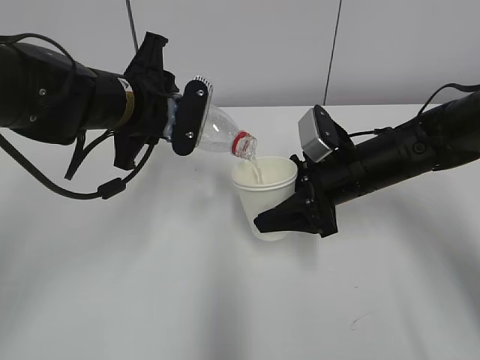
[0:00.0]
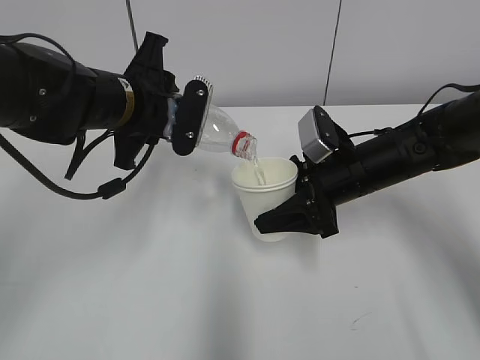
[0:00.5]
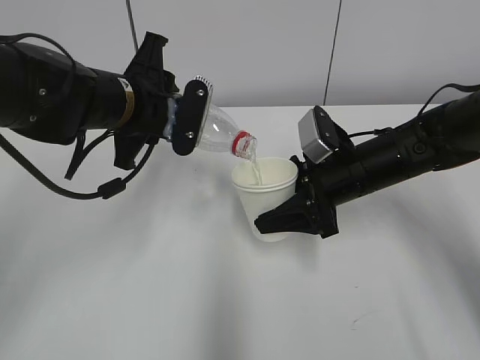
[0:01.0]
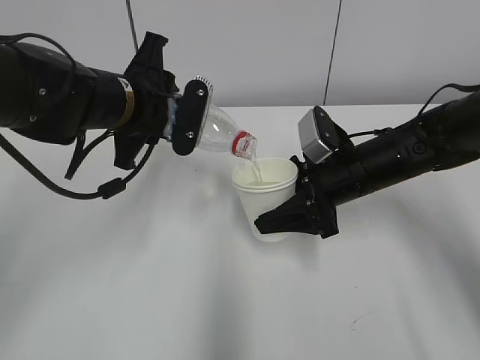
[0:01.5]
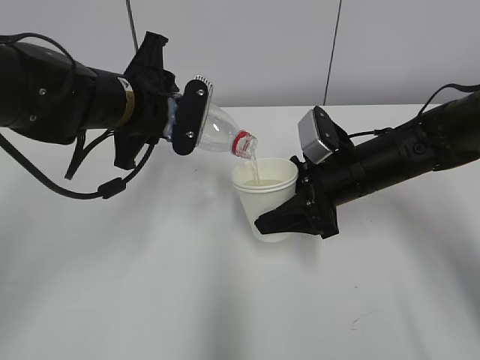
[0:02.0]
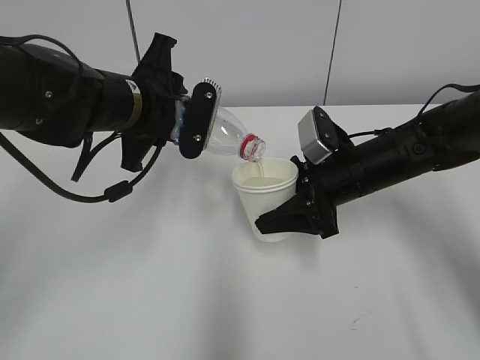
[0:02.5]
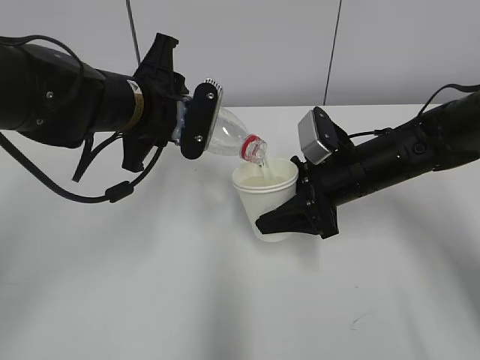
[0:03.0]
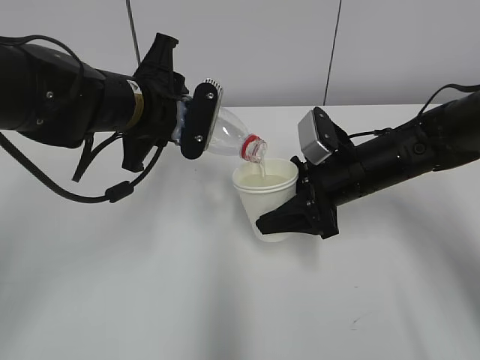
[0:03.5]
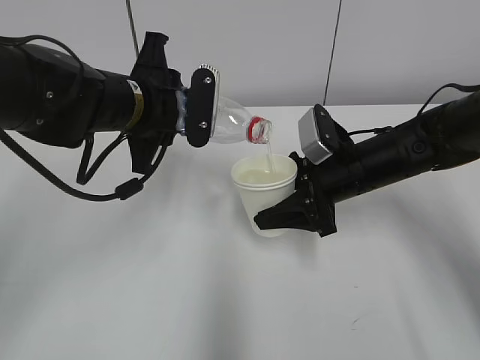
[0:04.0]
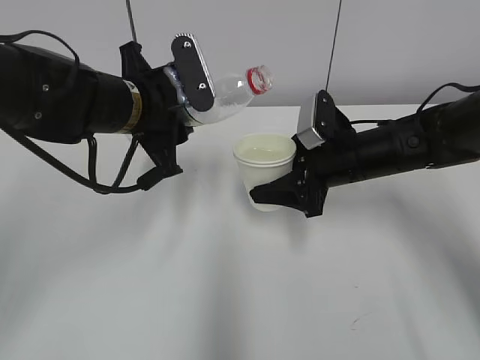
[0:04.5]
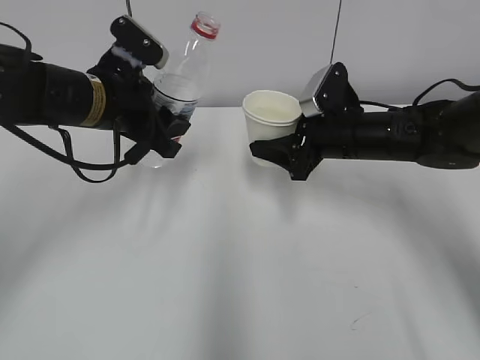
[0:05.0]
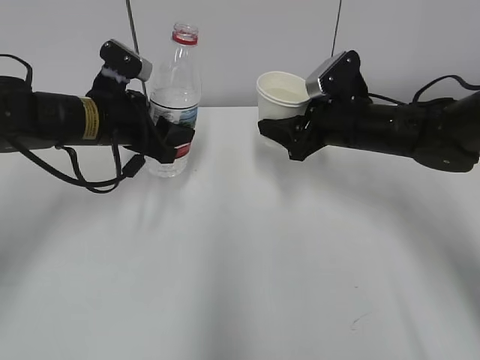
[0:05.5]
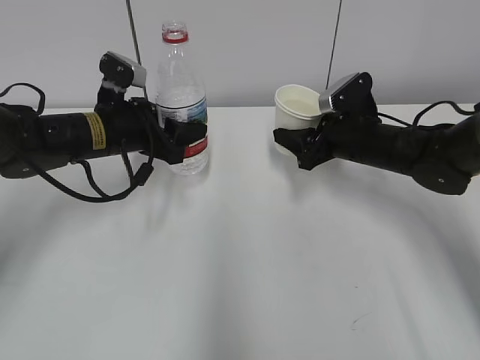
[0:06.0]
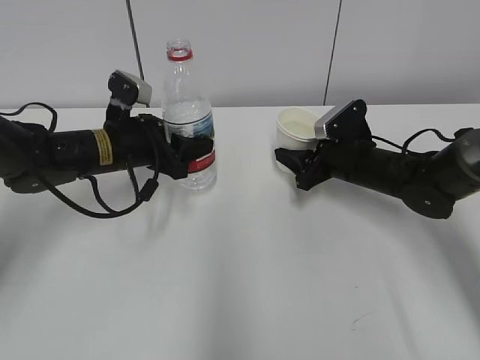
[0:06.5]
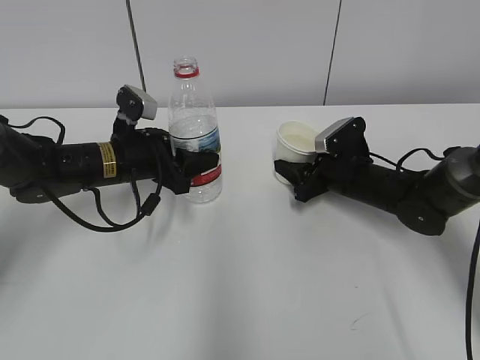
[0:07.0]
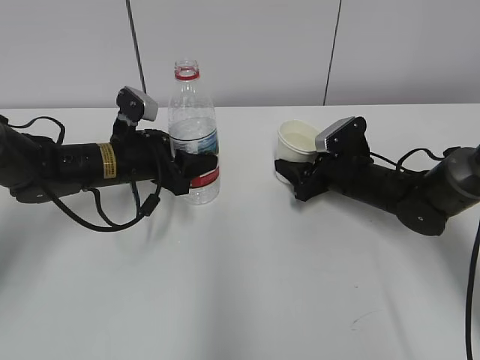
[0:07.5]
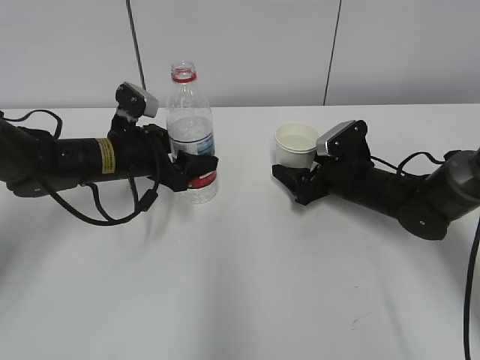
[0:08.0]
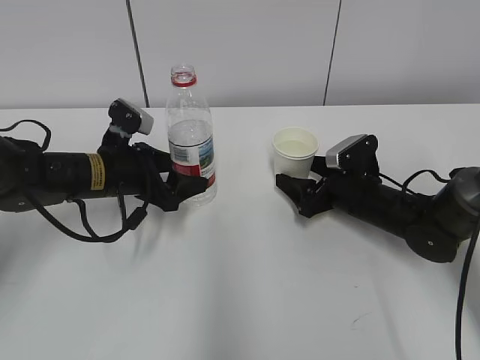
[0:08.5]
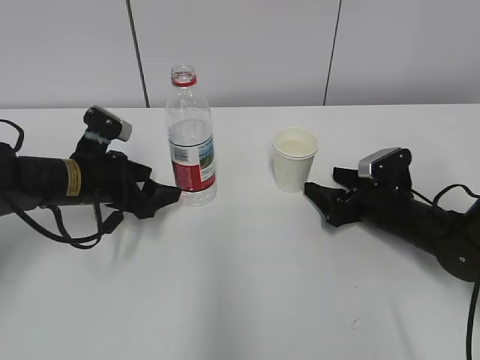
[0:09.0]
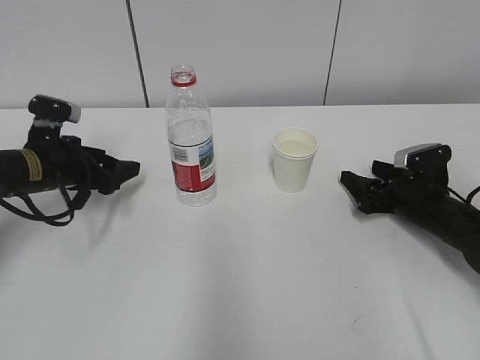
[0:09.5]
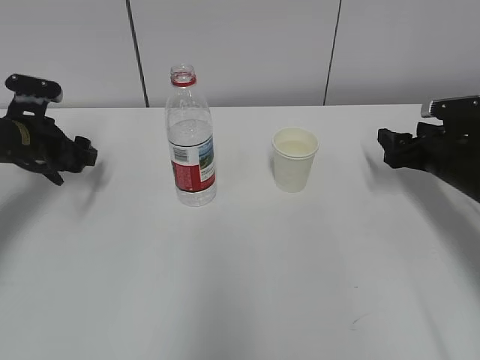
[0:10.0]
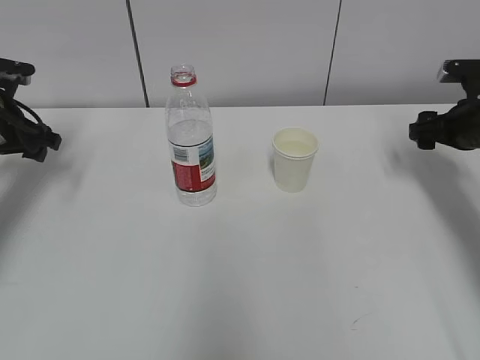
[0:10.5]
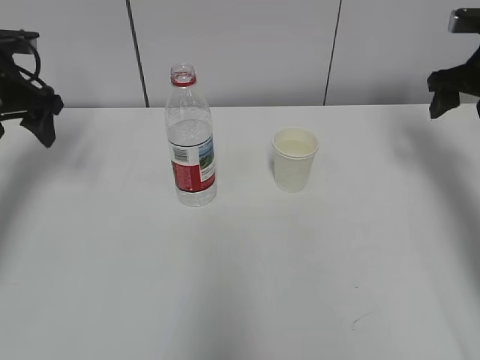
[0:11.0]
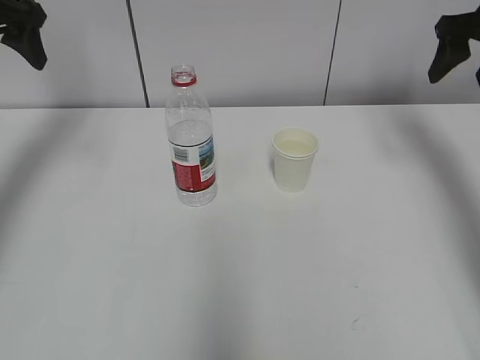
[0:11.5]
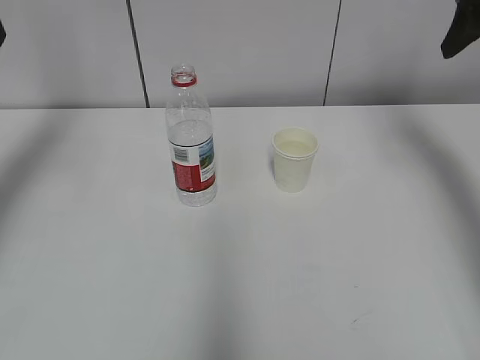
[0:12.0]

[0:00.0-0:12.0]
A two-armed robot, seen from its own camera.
0:00.0 to 0:02.0: The two grippers keep their place.
0:02.0 to 0:04.0: There are only small adjustments of the grippers.
0:04.0 to 0:06.0: The right gripper shifts about 5 cm forward, while the left gripper travels downward and to the left by some 10 cm.
0:06.0 to 0:08.0: The right gripper shifts approximately 5 cm downward, and opens its fingers; the left gripper opens its fingers.
0:08.0 to 0:10.0: The left gripper shifts approximately 15 cm to the left, while the right gripper heads to the right, covering roughly 10 cm.
0:10.0 to 0:12.0: Both grippers travel together upward, approximately 25 cm.

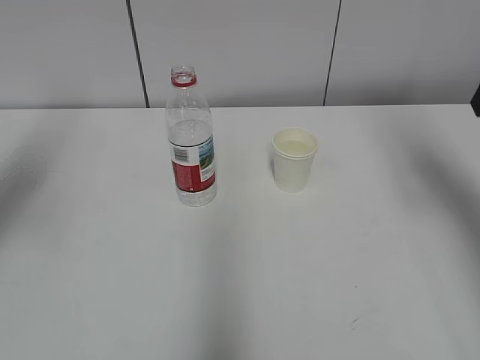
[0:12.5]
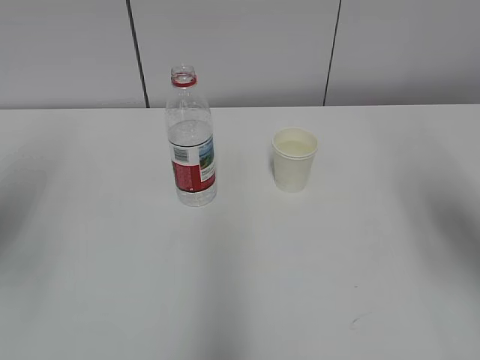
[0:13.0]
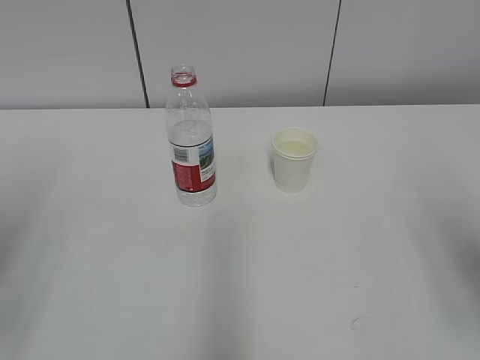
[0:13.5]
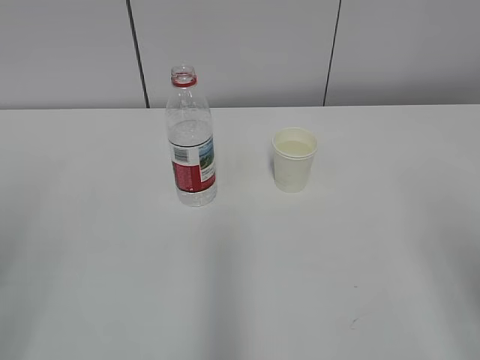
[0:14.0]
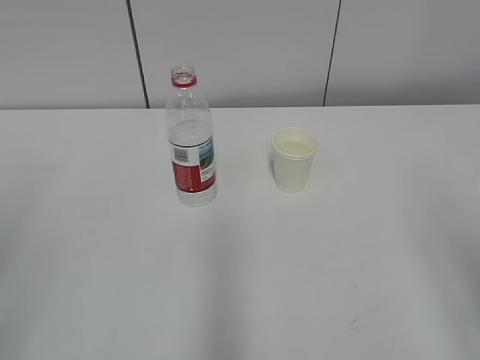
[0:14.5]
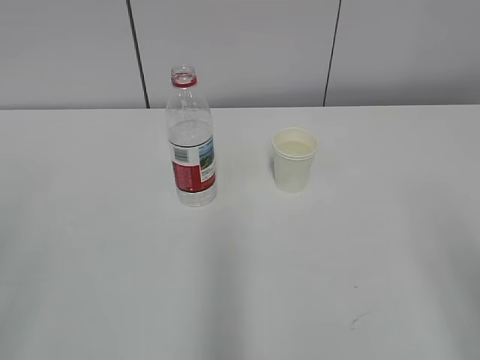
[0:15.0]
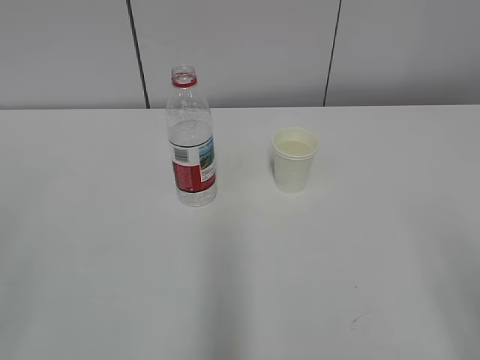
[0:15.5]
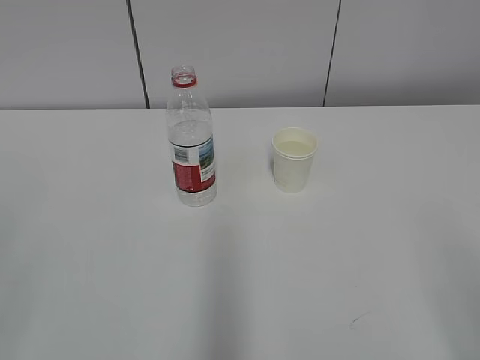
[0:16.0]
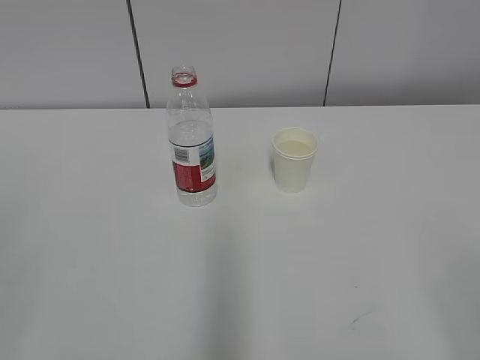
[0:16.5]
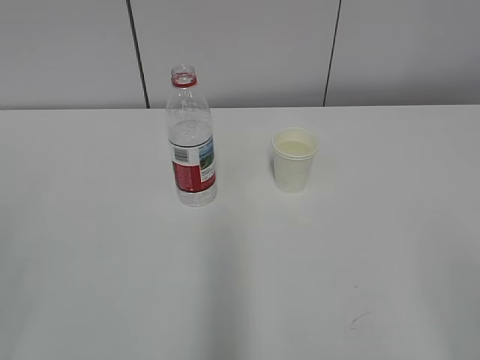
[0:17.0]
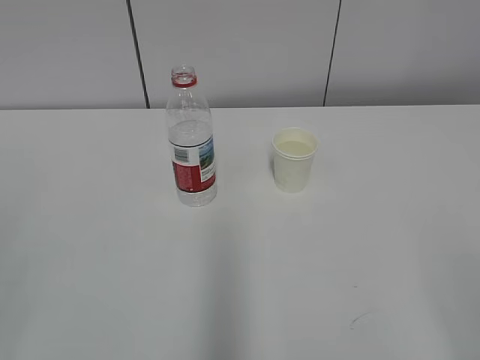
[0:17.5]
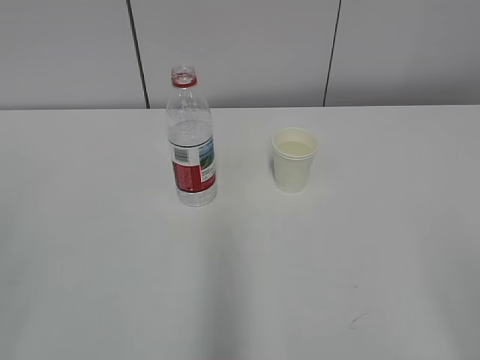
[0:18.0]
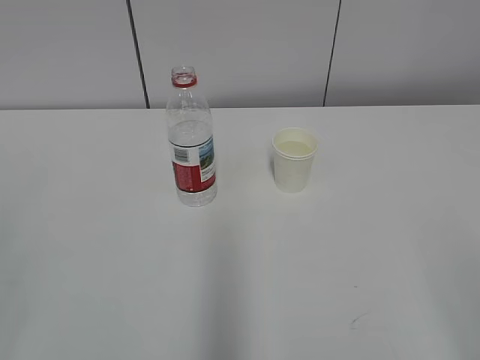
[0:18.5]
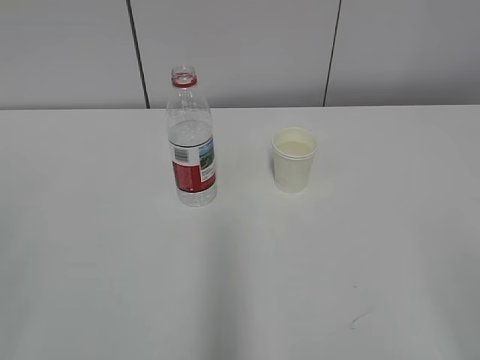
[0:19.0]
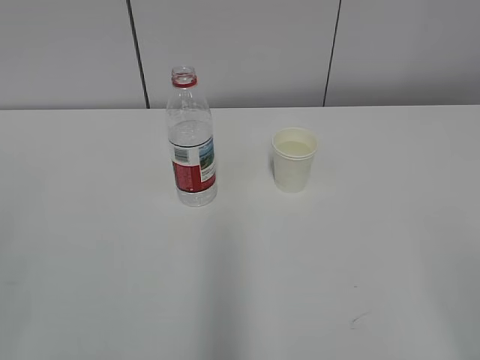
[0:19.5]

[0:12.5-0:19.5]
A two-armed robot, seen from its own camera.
0:12.5 to 0:14.5: The right gripper travels backward by roughly 25 cm; the left gripper shifts about 20 cm backward and downward.
0:17.5 to 0:19.5: The two grippers keep their place.

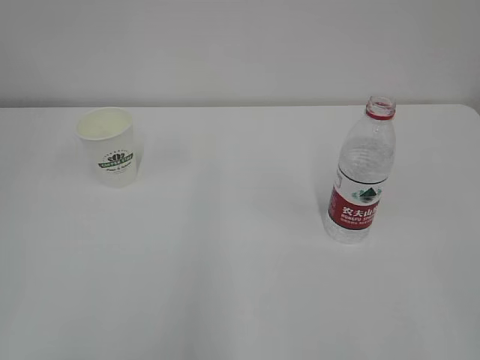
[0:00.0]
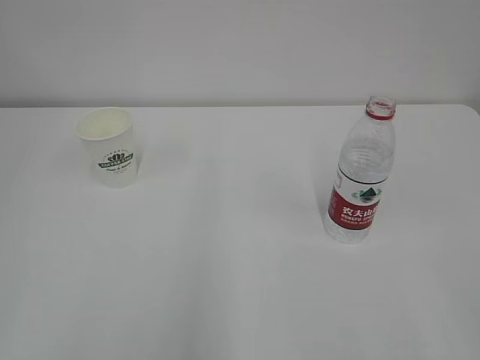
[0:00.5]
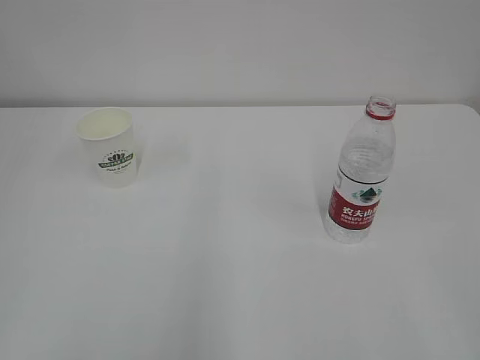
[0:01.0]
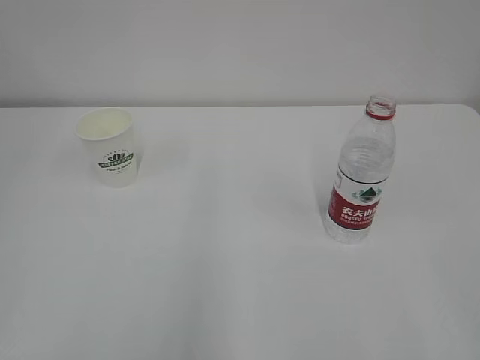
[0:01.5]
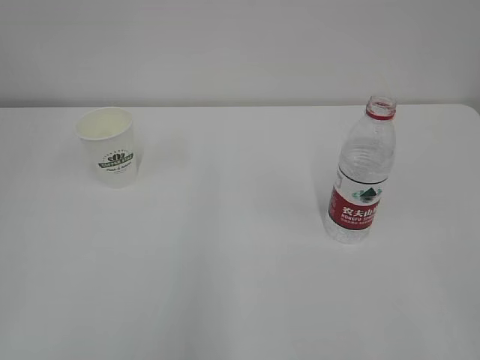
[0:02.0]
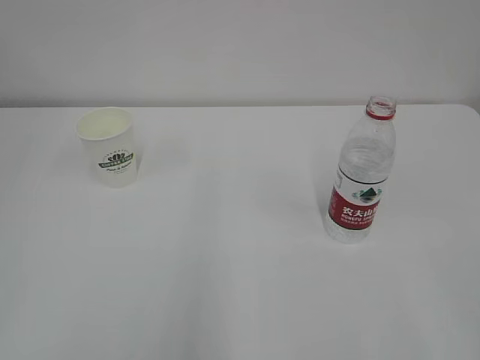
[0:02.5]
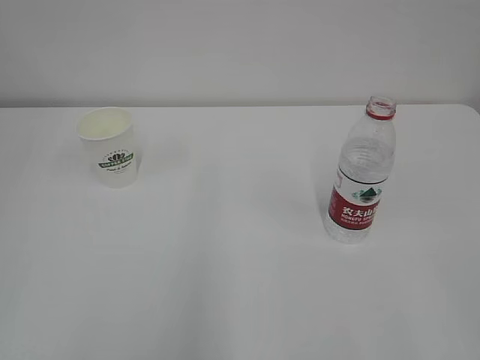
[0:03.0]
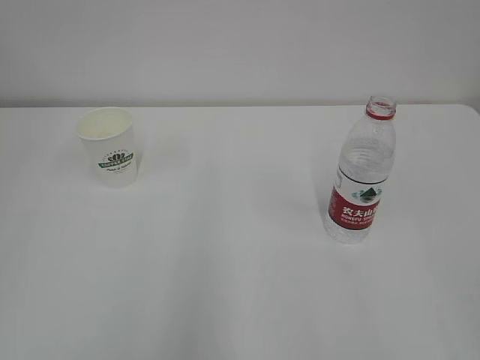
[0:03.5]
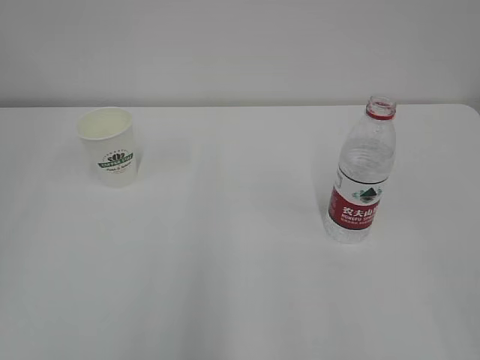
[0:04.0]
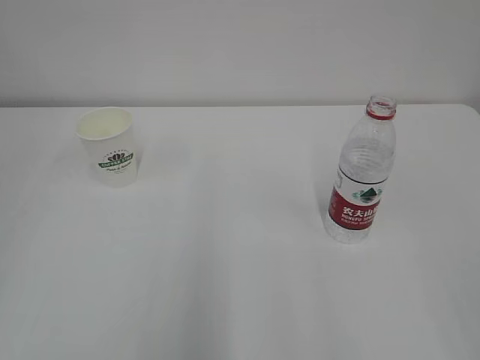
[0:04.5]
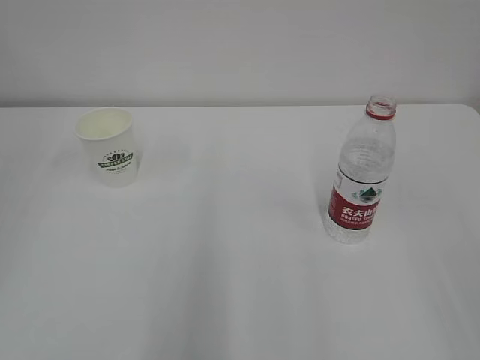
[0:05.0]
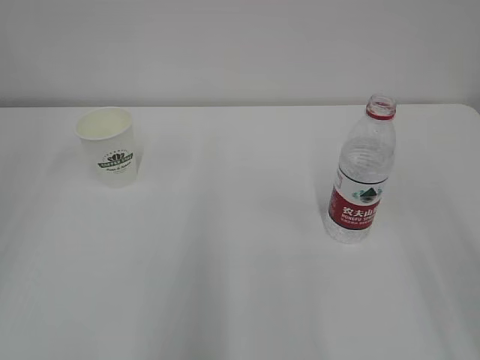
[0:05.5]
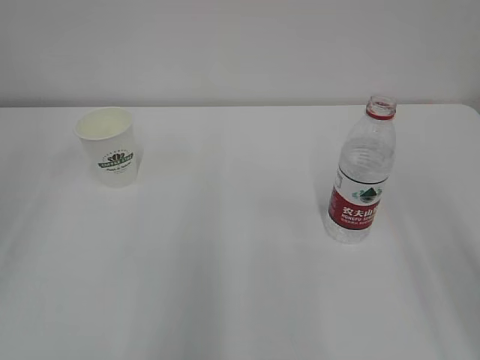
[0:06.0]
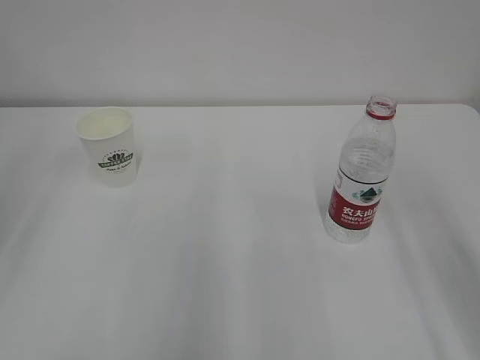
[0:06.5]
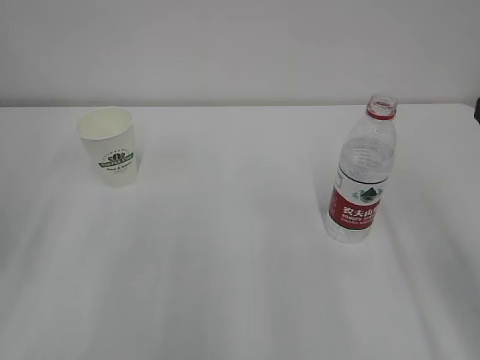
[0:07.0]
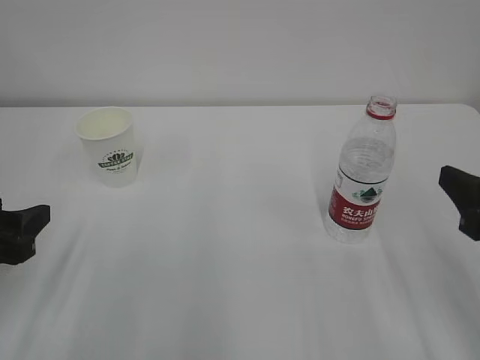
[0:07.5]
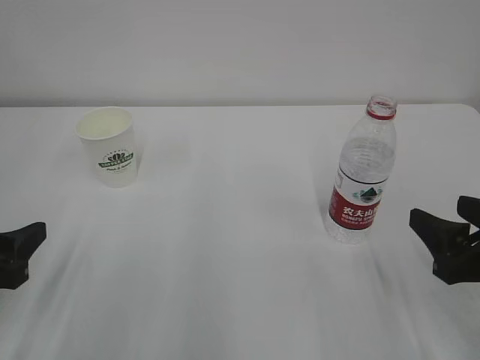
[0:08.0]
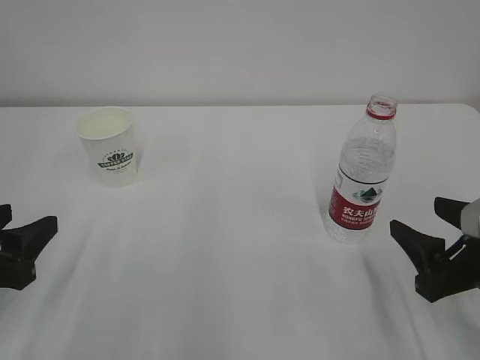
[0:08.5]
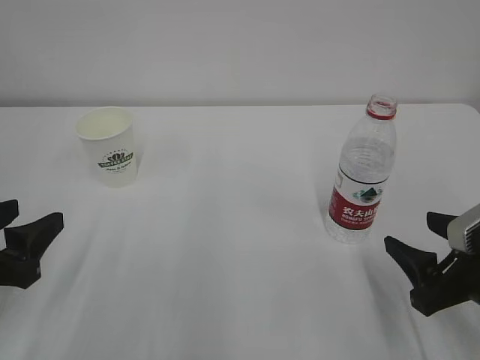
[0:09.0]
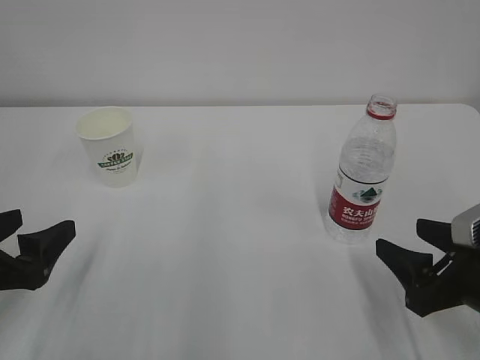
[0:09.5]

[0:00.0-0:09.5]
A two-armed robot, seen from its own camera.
0:05.5 to 0:07.5: The left gripper shifts roughly 15 cm downward, while the right gripper moves downward and forward, some 15 cm.
0:07.5 to 0:09.5: The right gripper heads downward, covering approximately 10 cm; the left gripper opens up.
